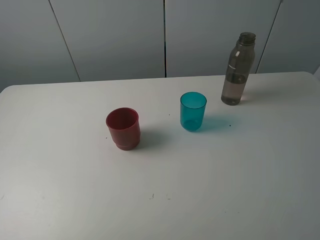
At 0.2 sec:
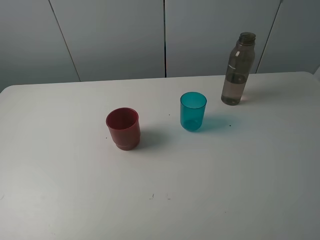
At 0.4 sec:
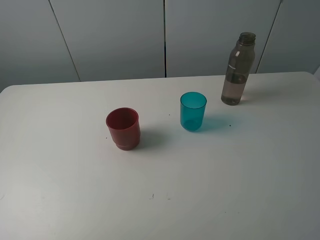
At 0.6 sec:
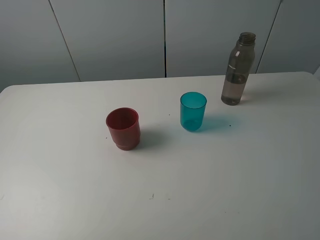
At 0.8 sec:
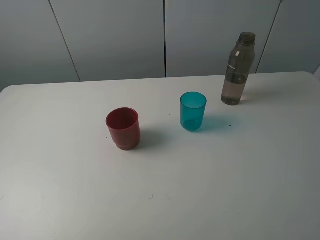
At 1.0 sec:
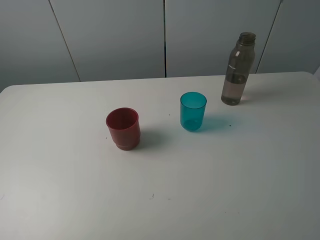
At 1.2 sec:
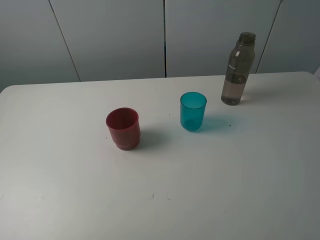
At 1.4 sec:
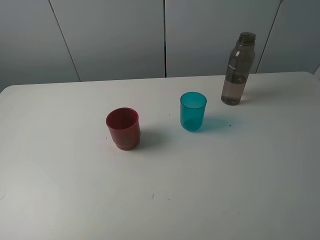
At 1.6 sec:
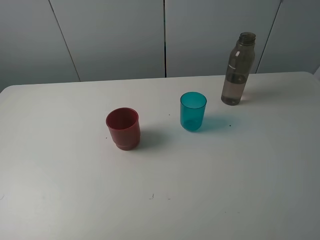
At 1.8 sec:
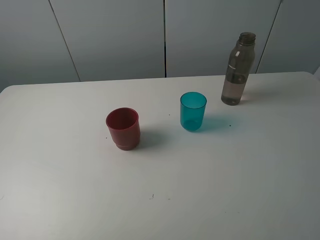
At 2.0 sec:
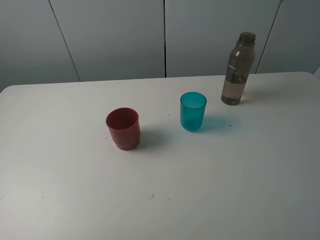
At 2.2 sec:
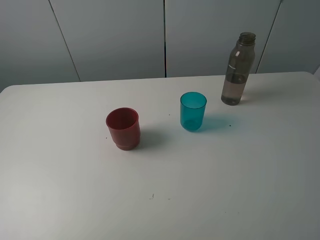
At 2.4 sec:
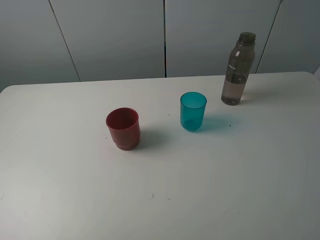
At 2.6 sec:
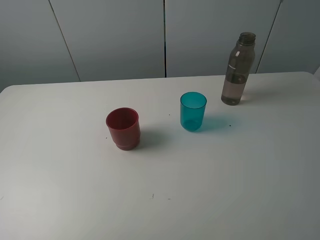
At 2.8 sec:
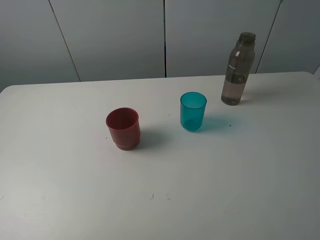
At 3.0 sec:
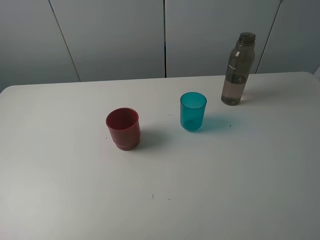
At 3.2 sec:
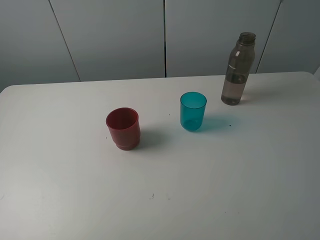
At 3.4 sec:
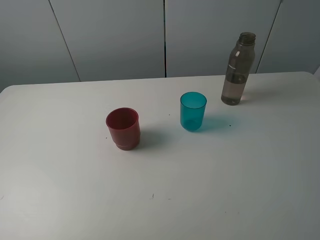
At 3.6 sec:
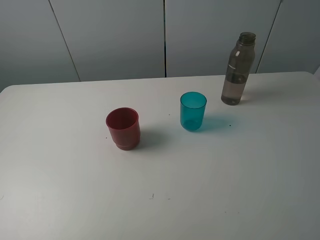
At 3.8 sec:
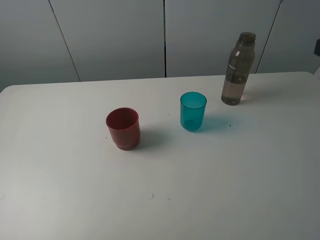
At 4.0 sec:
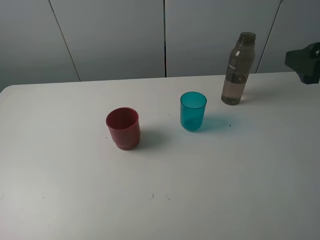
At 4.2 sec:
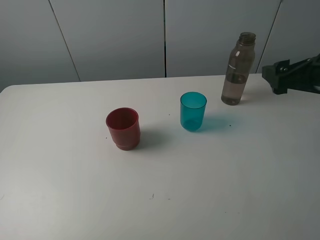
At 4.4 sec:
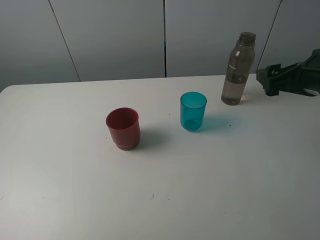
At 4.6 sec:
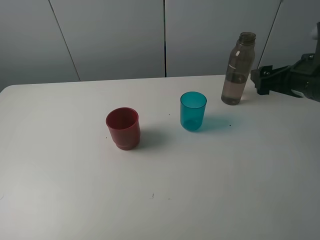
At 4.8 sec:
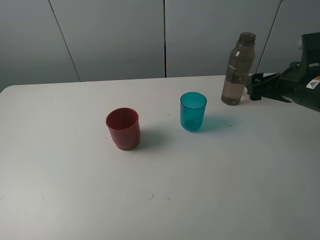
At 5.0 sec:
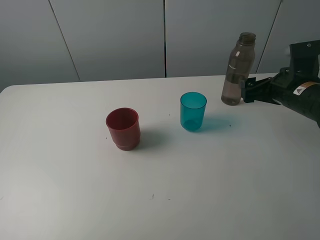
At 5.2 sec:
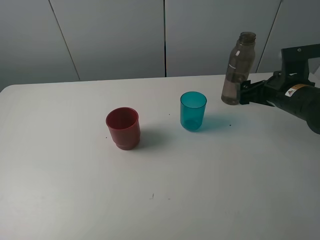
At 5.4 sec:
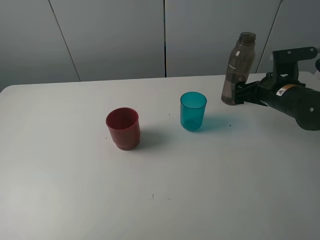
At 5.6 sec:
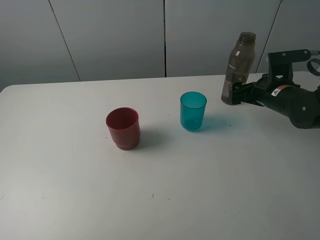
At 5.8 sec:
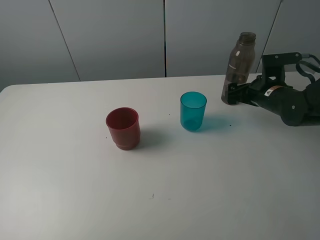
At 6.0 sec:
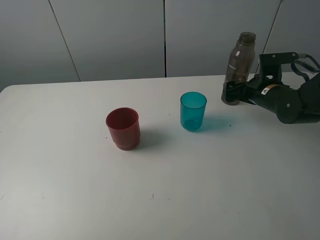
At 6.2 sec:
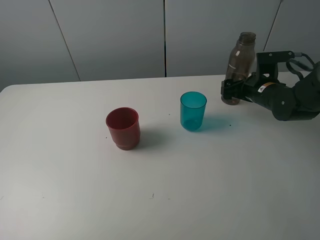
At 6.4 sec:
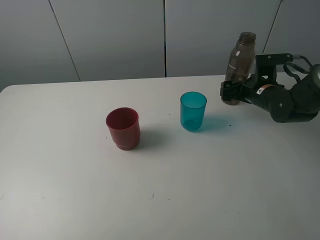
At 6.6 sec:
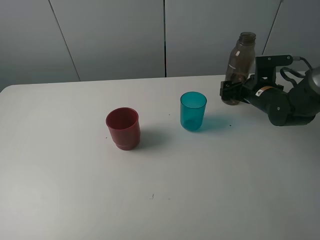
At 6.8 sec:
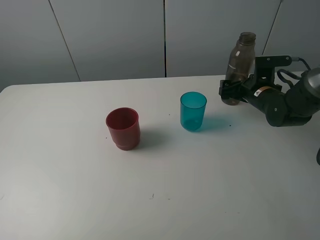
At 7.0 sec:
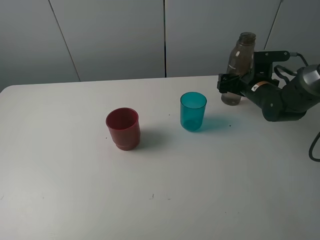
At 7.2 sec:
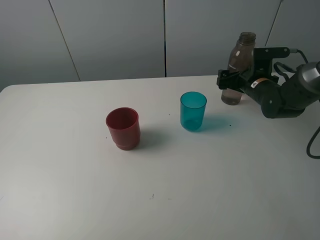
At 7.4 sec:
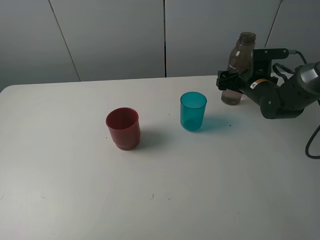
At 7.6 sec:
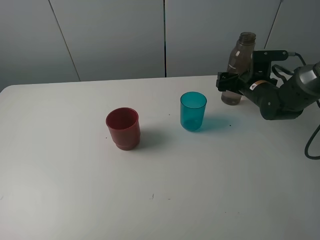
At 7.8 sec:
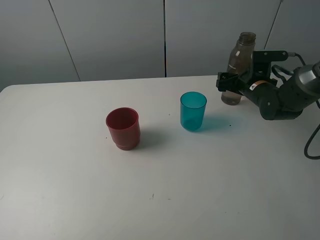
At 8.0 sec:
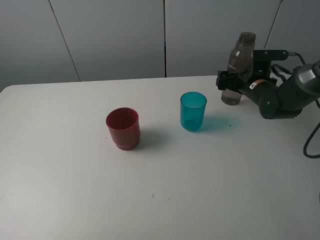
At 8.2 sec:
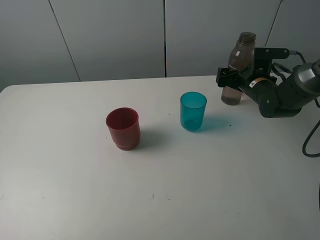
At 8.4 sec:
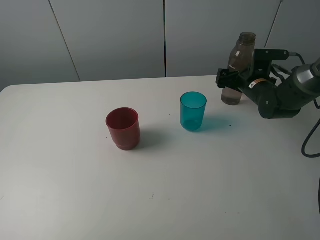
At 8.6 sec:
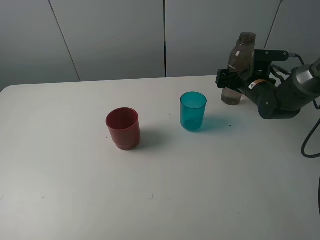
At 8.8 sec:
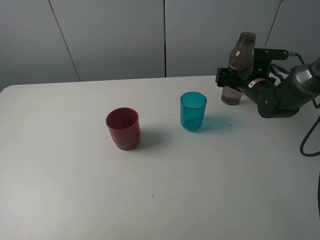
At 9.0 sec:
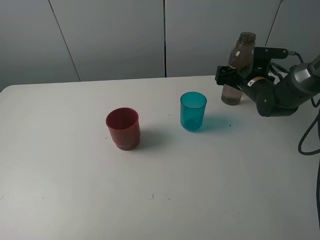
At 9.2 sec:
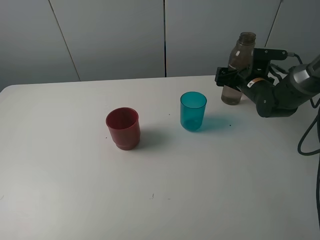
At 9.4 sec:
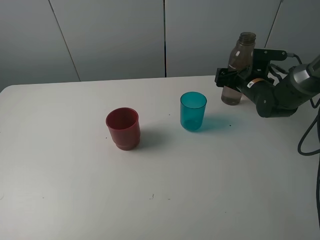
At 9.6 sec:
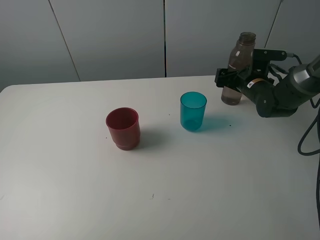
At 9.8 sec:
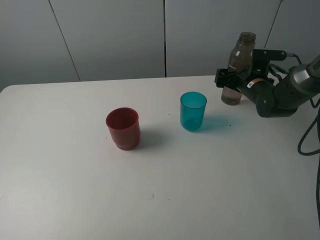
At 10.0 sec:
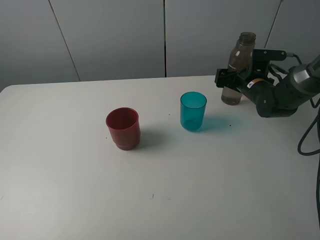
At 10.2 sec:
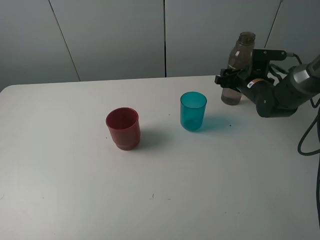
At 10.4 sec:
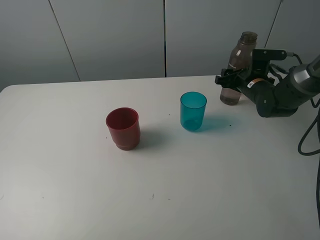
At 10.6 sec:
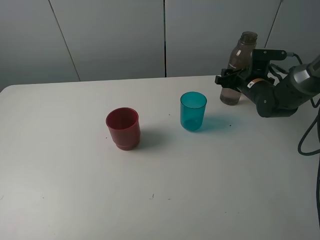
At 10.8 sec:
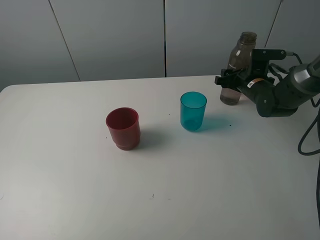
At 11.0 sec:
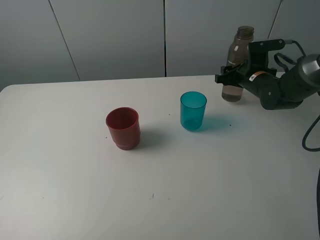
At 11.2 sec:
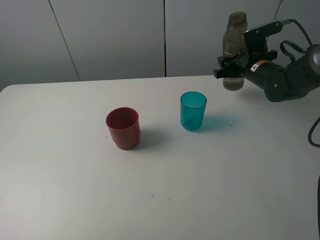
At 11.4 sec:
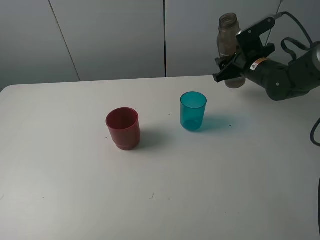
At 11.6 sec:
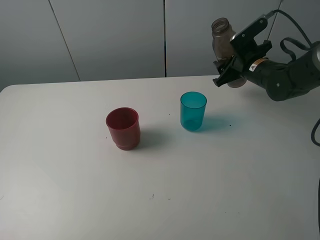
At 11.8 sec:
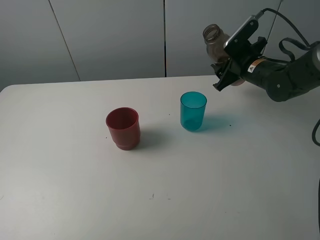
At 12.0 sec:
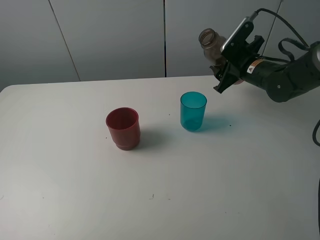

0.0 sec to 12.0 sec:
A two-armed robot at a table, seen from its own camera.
Task of the whole recording: pick up the bottle and pour water into the cup, then pick up the cup containing water and pour it into another cup.
Step, 0.0 sec to 8.4 sec: Grasp the brown bottle with the right gripper.
0.0 sec to 1.6 sec: Both grippers stay about where they are.
3.0 sec to 4.4 sec: The right gripper moves forward, approximately 25 cm.
4.4 sec to 6.0 sec: The right gripper shifts roughly 15 cm downward and forward.
6.0 sec to 9.0 sec: The grippers stay close to where they were, moving slightly.
9.0 sec to 10.4 sec: The right gripper closes up.
10.4 sec to 12.0 sec: The right gripper is displaced upward by roughly 5 cm.

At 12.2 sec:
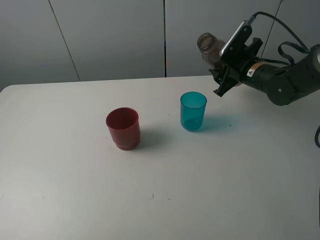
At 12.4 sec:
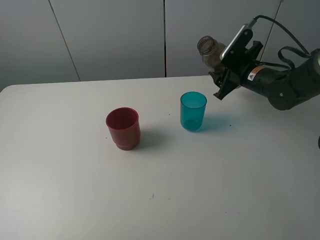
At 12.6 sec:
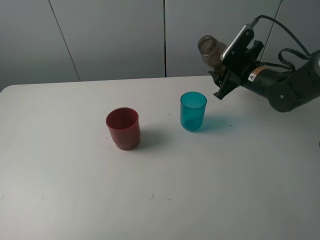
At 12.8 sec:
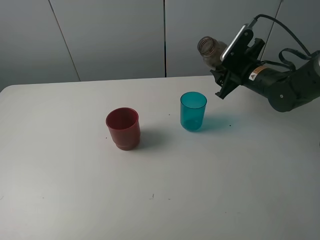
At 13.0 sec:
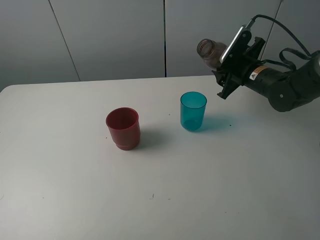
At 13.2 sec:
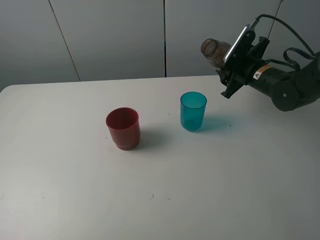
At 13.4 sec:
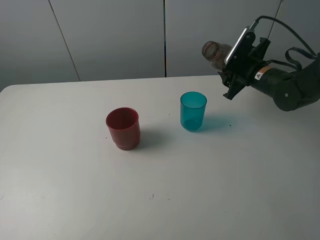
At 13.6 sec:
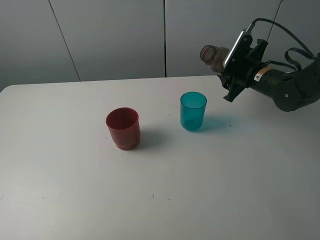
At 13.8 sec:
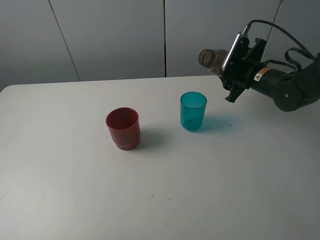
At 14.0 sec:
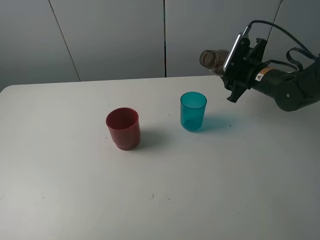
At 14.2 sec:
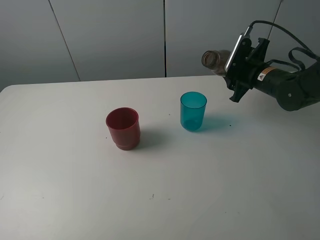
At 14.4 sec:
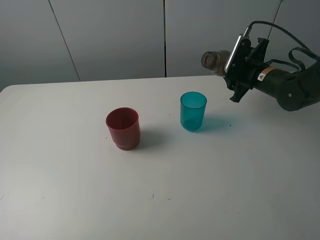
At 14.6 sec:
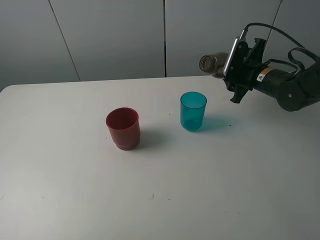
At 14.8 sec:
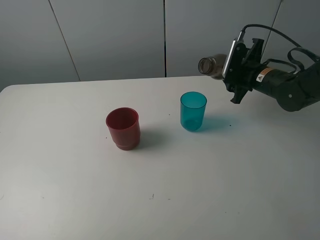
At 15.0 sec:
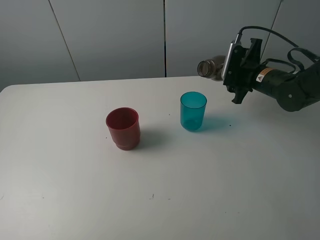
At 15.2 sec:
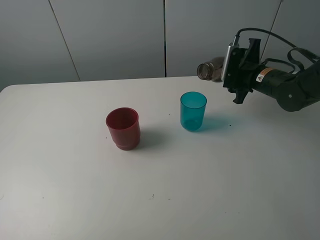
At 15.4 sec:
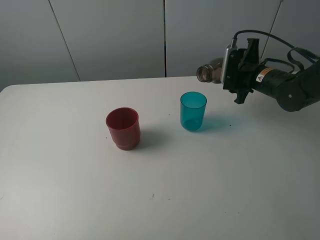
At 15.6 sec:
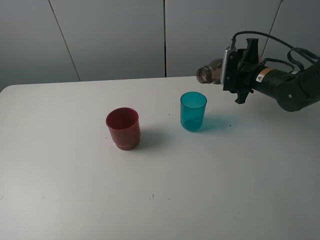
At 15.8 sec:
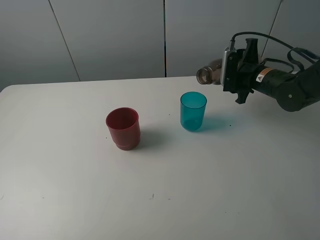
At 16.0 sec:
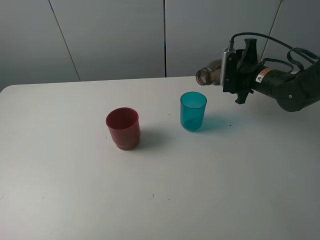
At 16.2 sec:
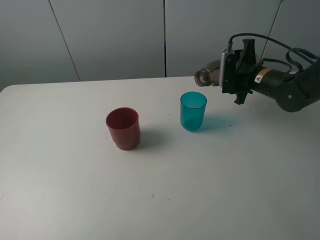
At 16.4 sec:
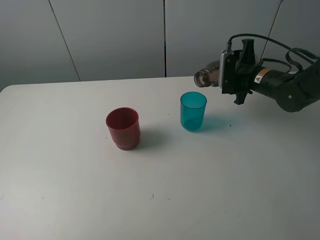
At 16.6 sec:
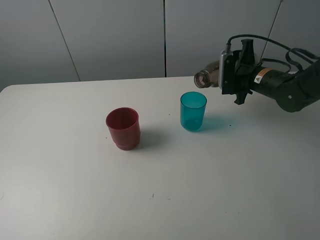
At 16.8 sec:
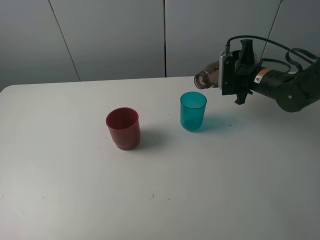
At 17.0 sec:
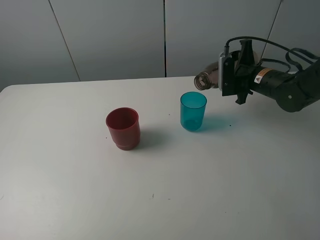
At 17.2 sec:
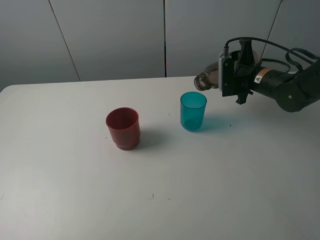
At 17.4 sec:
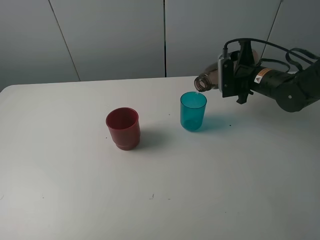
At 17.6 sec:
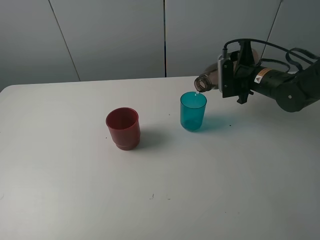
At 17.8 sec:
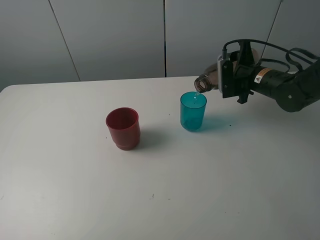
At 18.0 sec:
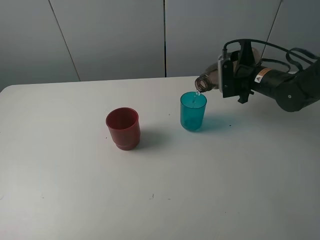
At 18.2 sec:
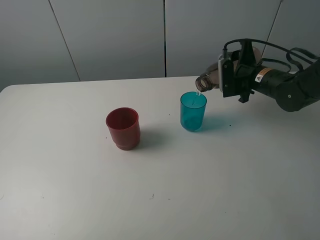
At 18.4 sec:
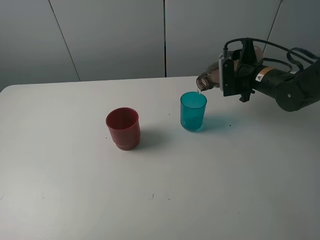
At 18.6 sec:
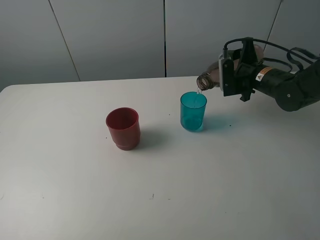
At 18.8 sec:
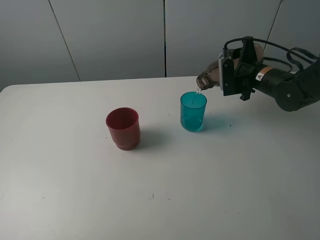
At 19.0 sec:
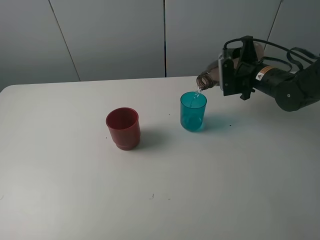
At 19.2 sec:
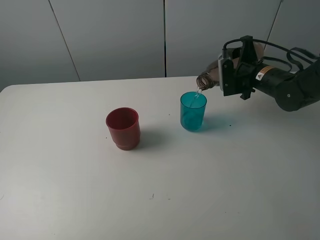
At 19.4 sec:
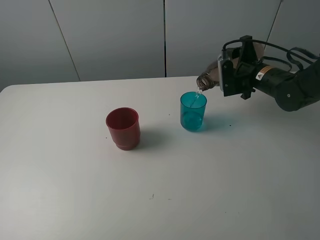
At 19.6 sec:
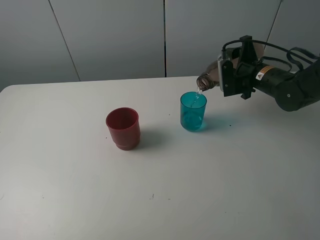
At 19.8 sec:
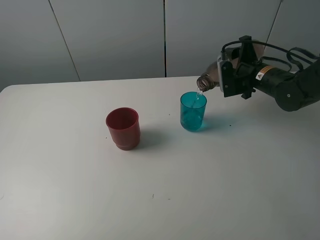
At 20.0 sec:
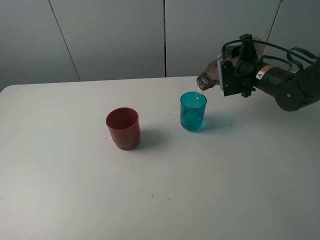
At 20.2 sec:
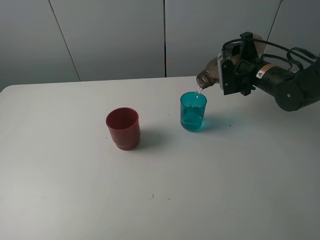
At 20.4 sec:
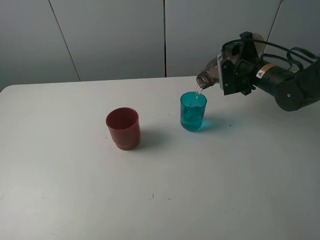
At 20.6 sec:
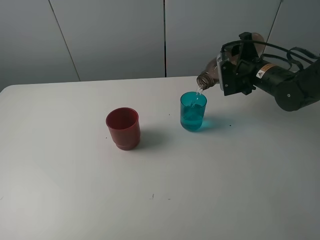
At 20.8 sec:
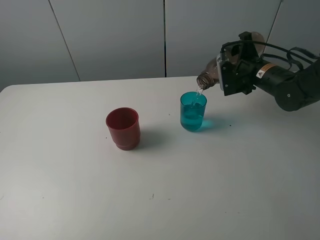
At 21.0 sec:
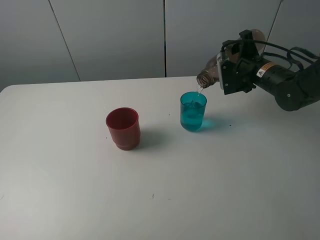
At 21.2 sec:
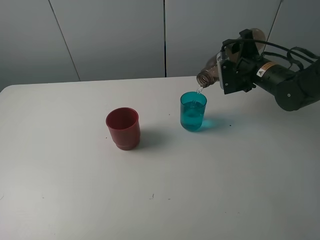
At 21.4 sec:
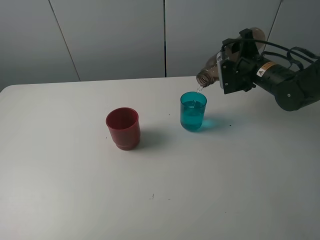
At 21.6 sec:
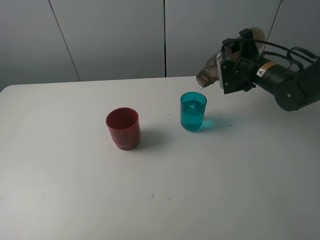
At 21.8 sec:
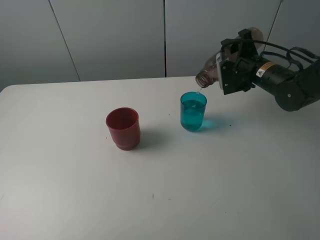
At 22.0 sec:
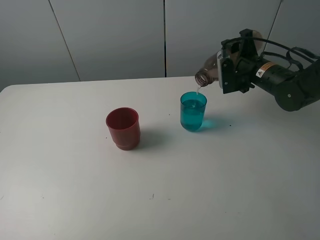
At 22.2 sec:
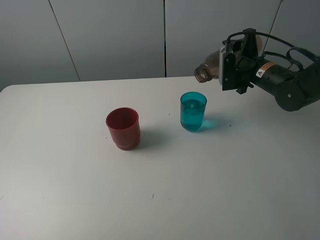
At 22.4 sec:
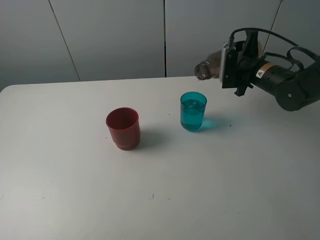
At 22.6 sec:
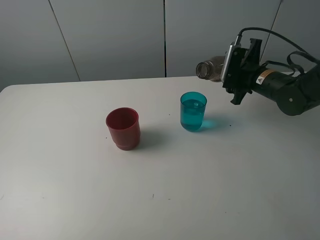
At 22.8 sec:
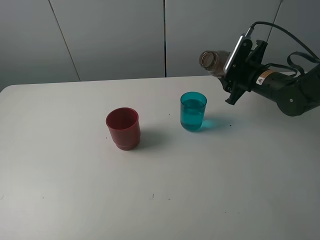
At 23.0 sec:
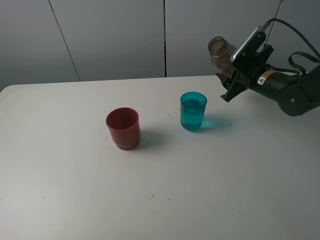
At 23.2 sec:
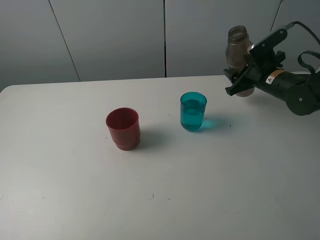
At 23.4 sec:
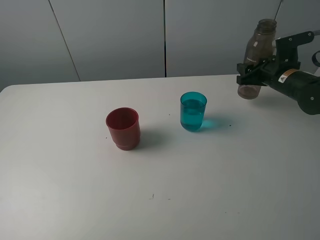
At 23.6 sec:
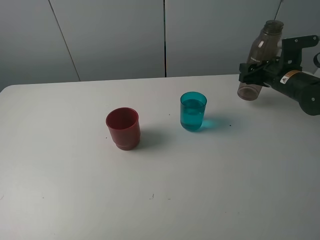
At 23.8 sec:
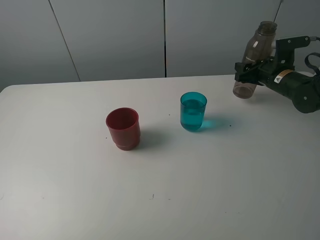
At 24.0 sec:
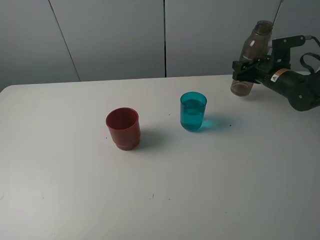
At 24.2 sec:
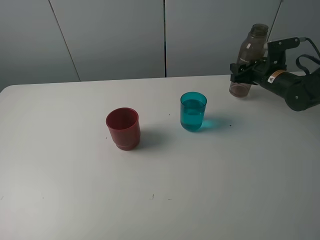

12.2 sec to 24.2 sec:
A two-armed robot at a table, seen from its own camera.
Task of the whole recording: pick up the bottle and pour water into the cup, then pick up the cup containing water and pour it into another cup.
Step, 12.2 sec to 22.4 sec: Pour water from brown bottle to blue cup with the right gripper.
12.2 sec to 13.8 sec: There are only small adjustments of the grippers.
13.8 sec to 15.2 sec: The grippers stay close to where they were, moving slightly.
15.2 sec to 18.2 sec: The grippers make only small movements.
18.2 sec to 21.2 sec: The grippers make only small movements.
22.6 sec to 24.2 sec: The right gripper heads to the right, covering approximately 5 cm.
